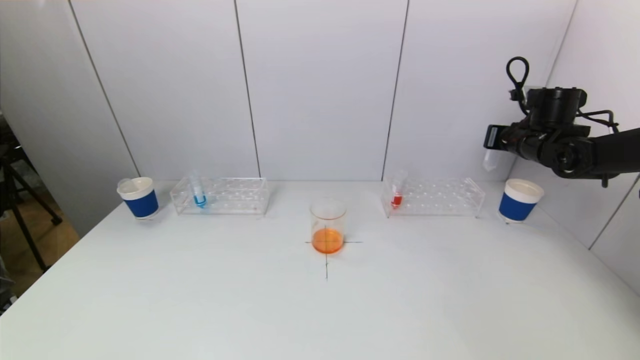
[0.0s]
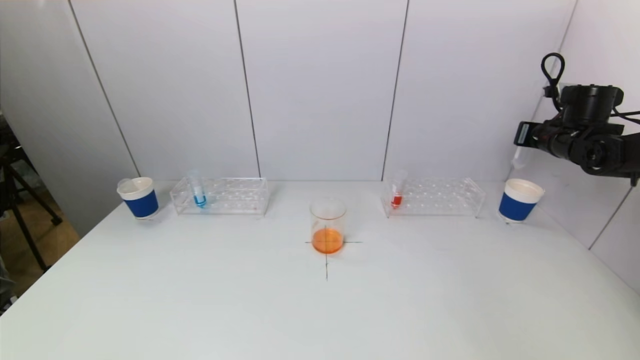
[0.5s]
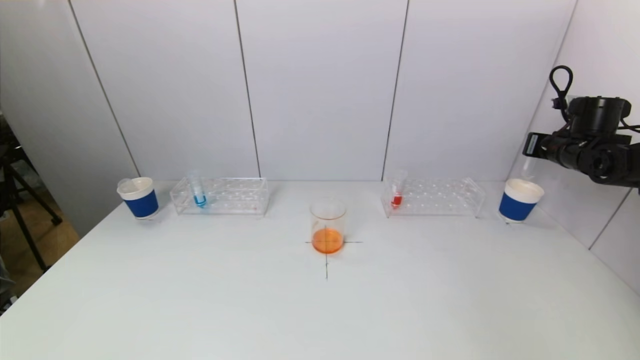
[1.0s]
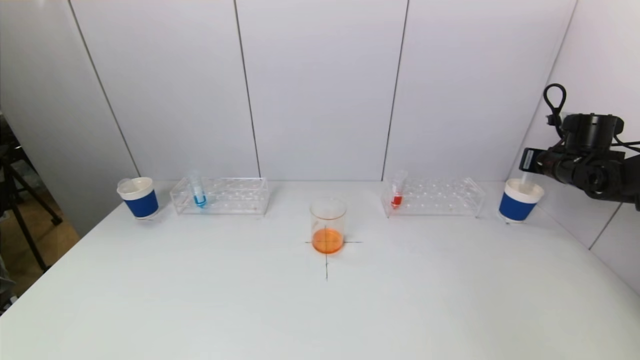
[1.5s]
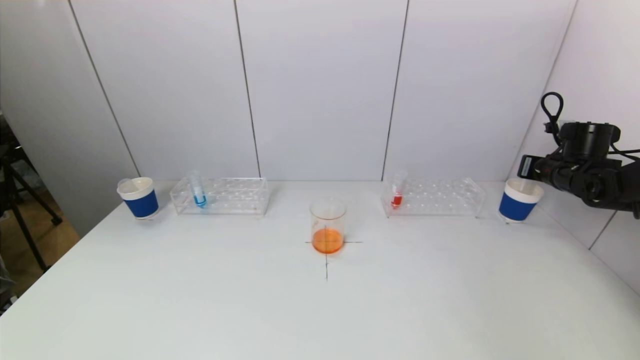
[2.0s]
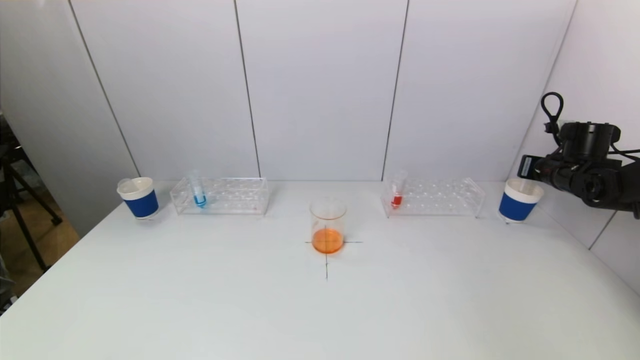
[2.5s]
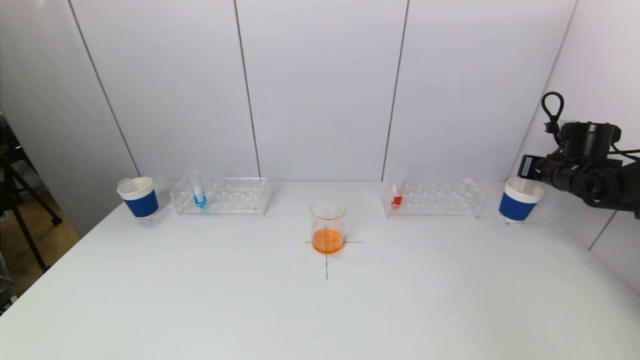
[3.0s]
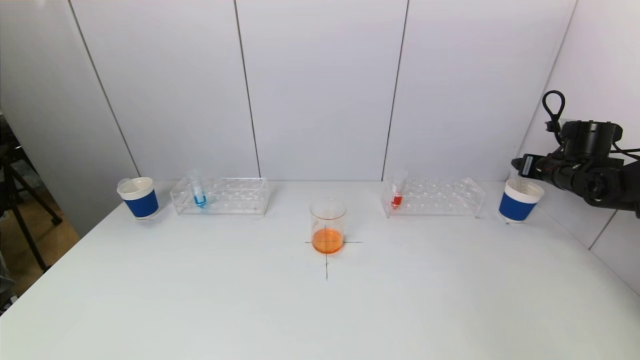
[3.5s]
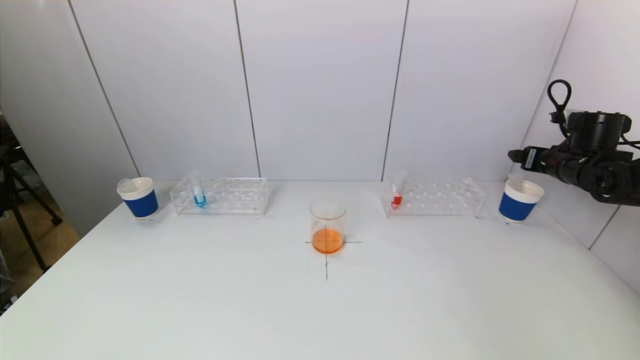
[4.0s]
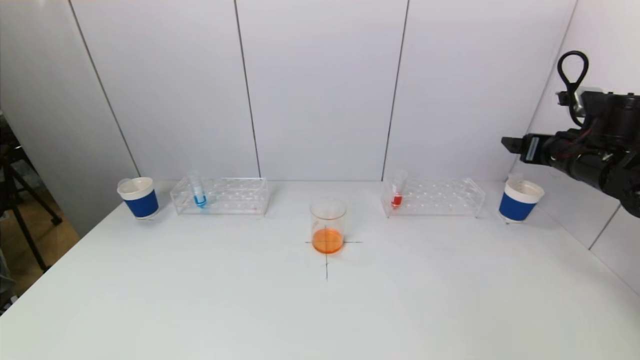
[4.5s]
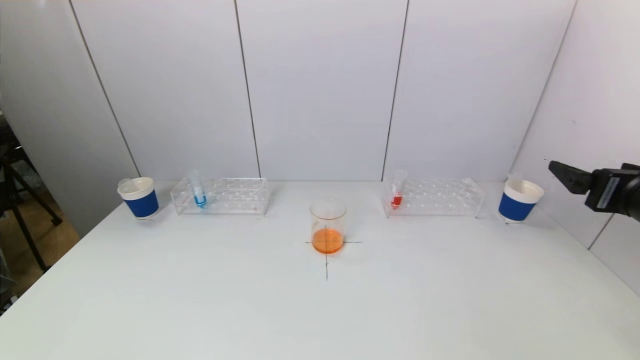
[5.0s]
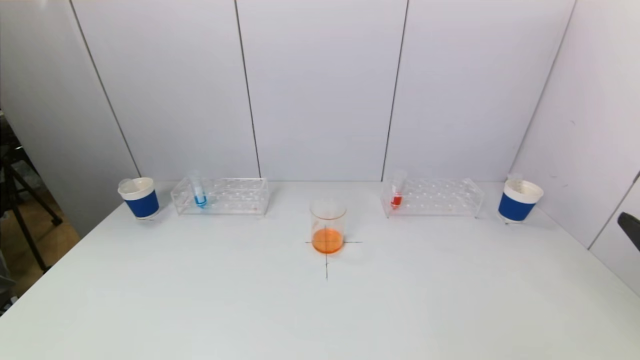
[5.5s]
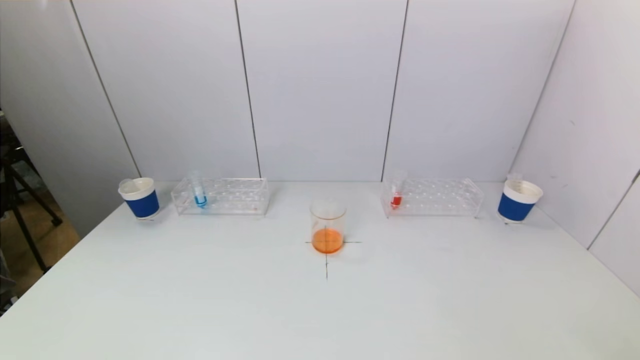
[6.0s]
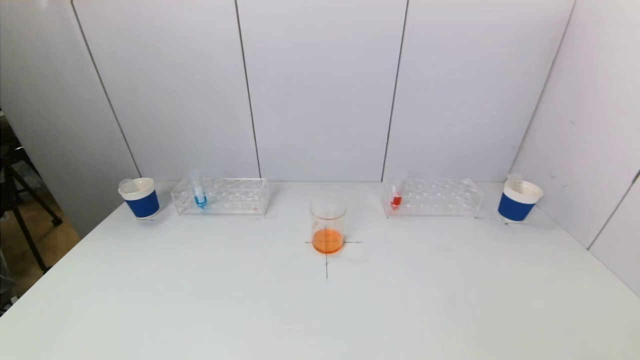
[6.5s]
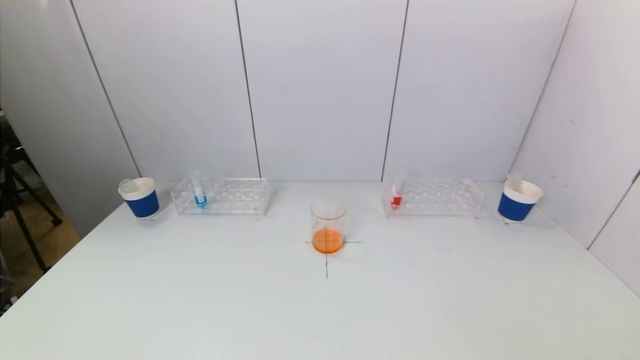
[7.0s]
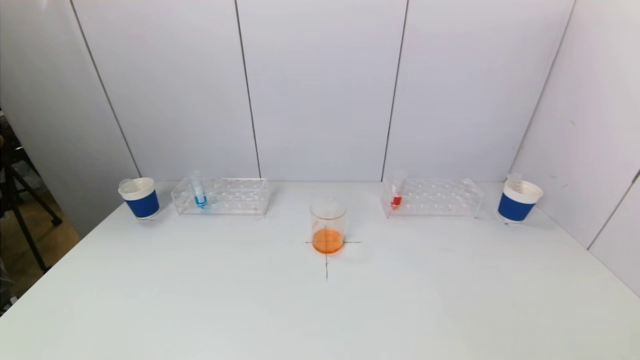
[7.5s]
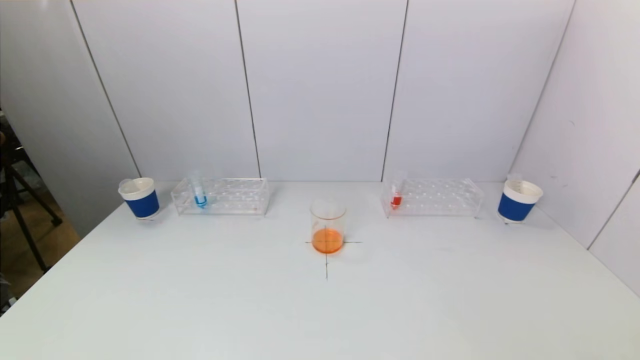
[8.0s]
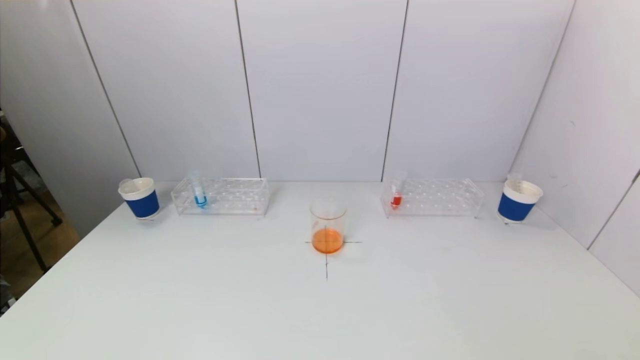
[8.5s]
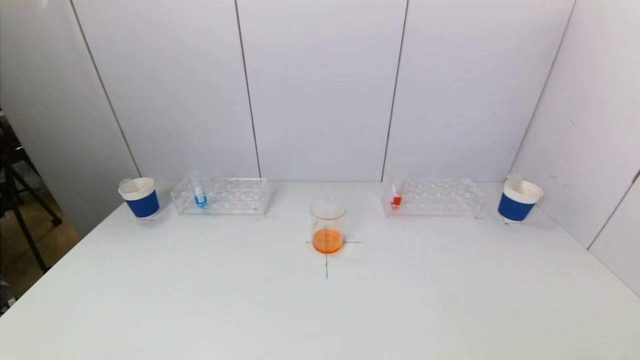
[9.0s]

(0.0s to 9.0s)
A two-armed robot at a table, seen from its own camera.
Task of the whole recording: pick up a test tube with pigment on left test tube rack and a test tube with pigment on right test tube rack by grippers and pour them into the beaker.
Step, 0.0s - 3.5s: Place the test tube into the paper cup with the right gripper.
0.0s - 2.0s: The right gripper moves to the right and downward, roughly 10 cm.
2.0s - 4.5s: The right gripper shifts about 15 cm backward, to the left and upward, and opens.
4.5s - 7.0s: The right gripper goes roughly 35 cm backward.

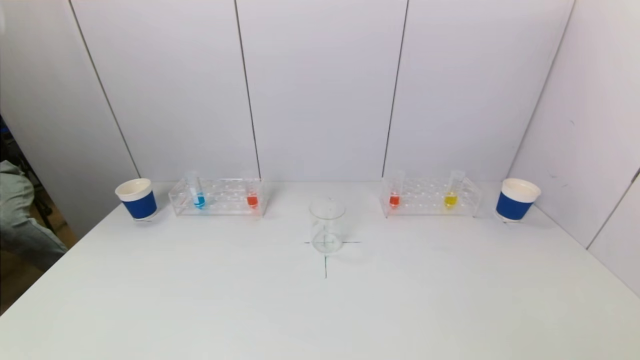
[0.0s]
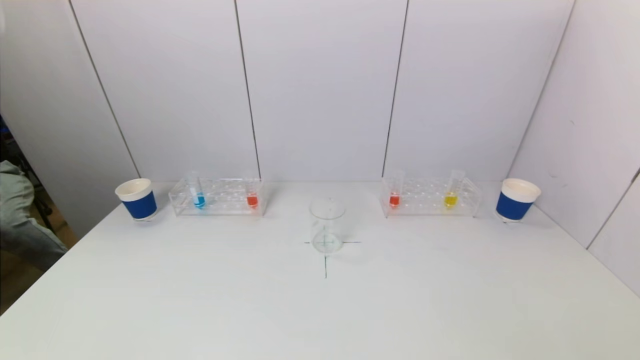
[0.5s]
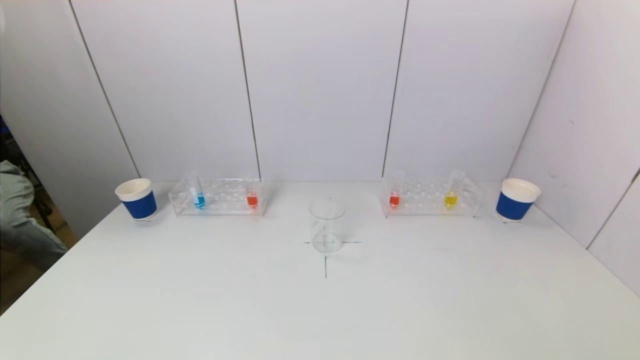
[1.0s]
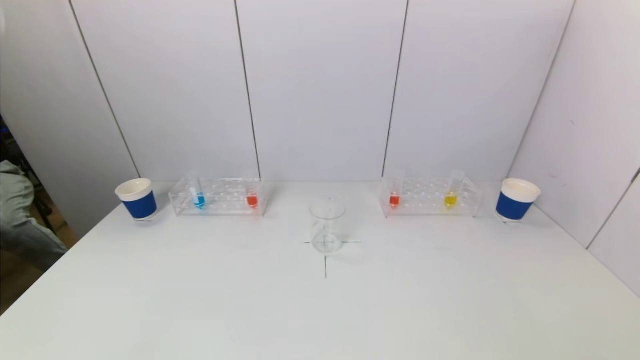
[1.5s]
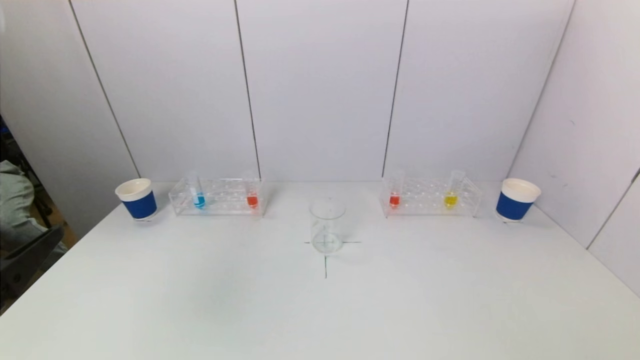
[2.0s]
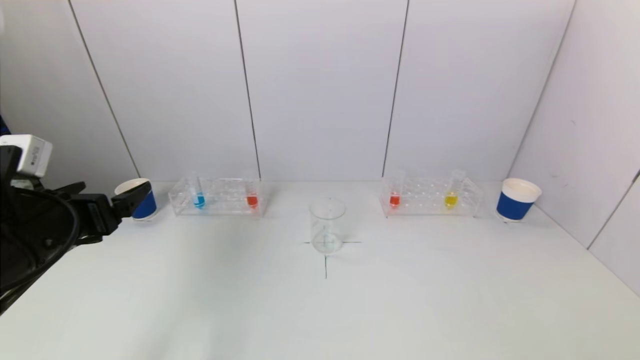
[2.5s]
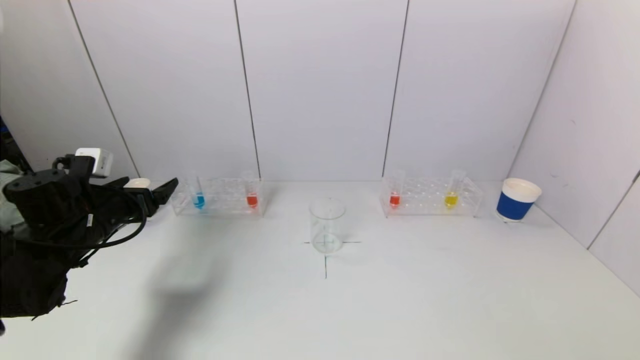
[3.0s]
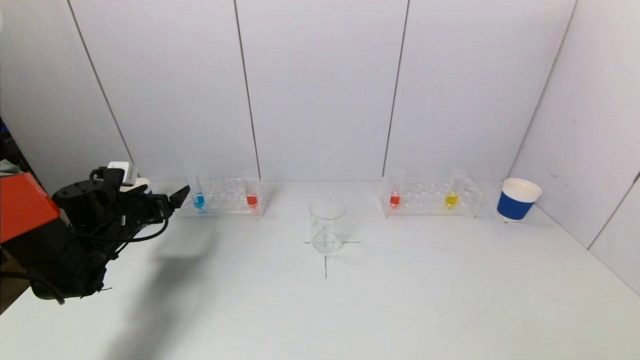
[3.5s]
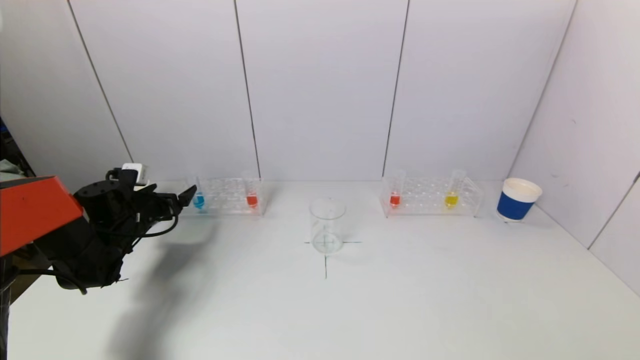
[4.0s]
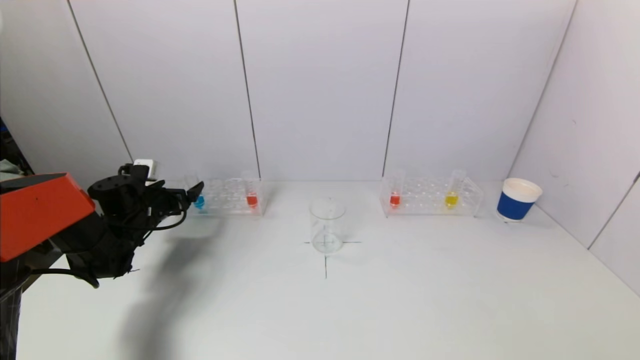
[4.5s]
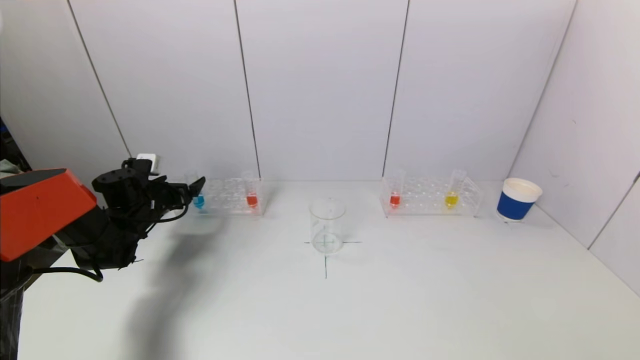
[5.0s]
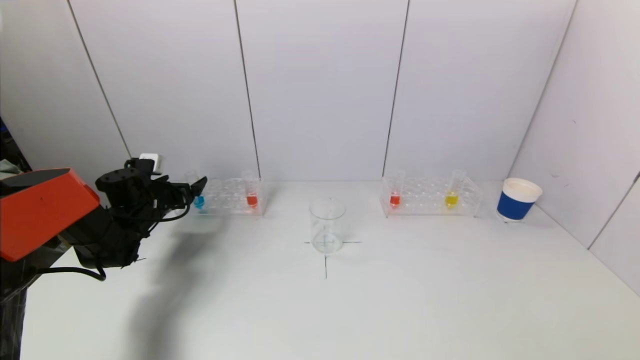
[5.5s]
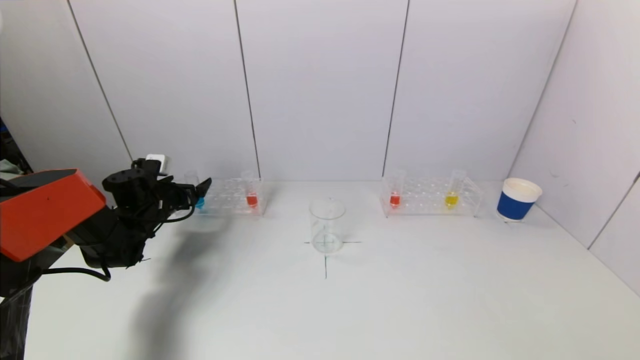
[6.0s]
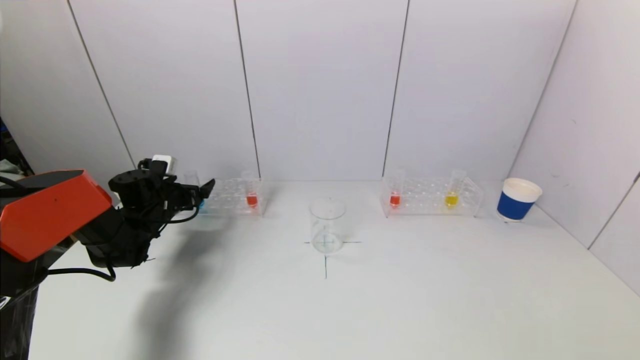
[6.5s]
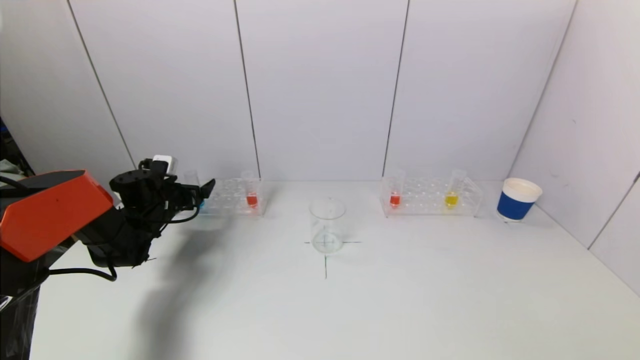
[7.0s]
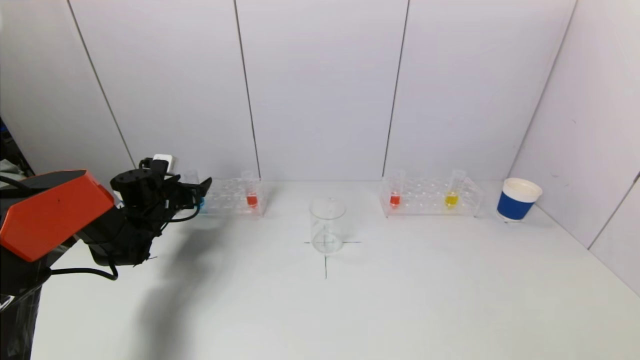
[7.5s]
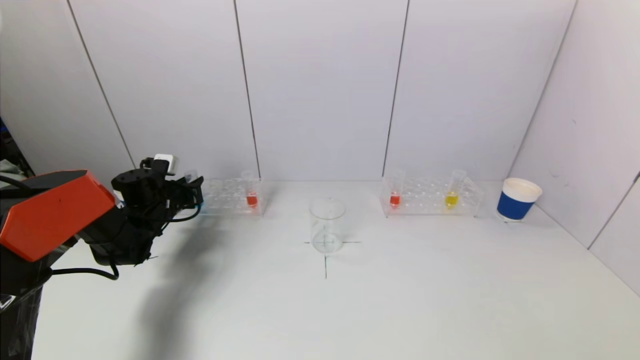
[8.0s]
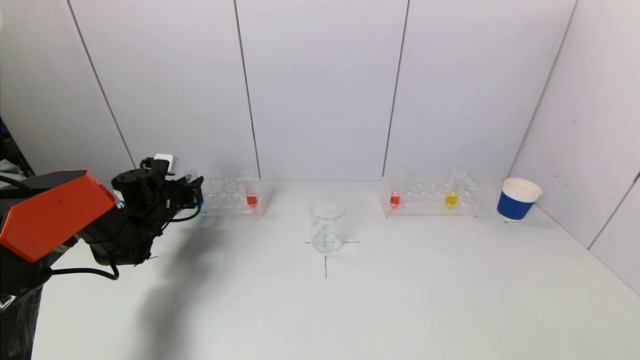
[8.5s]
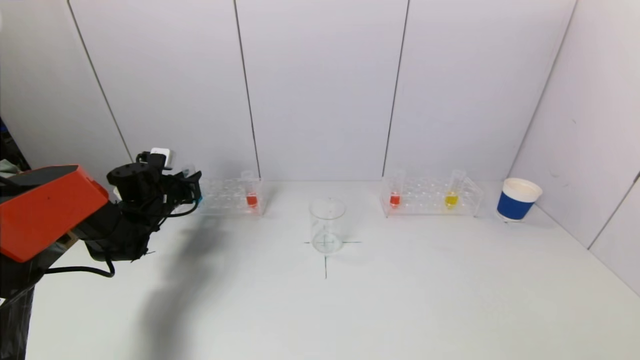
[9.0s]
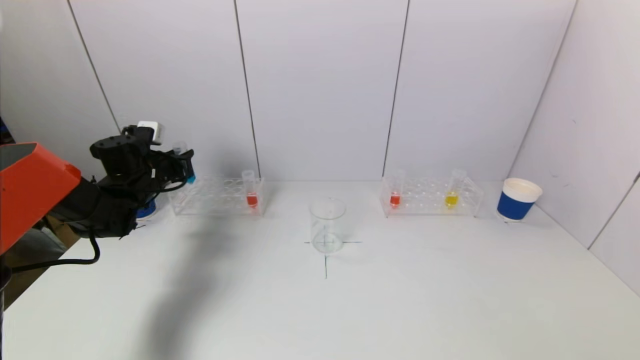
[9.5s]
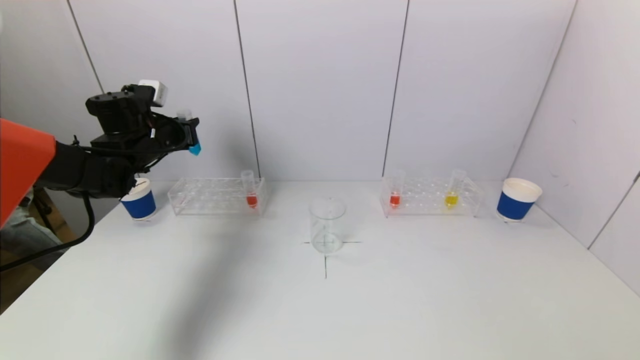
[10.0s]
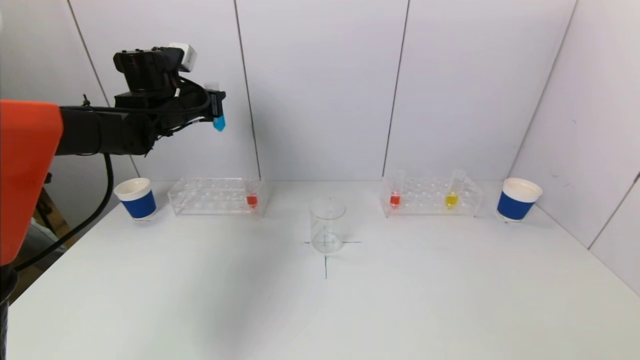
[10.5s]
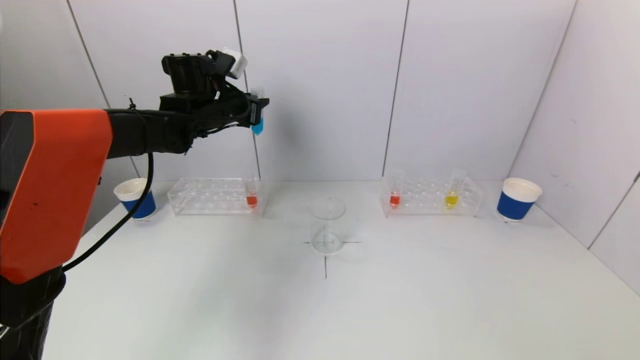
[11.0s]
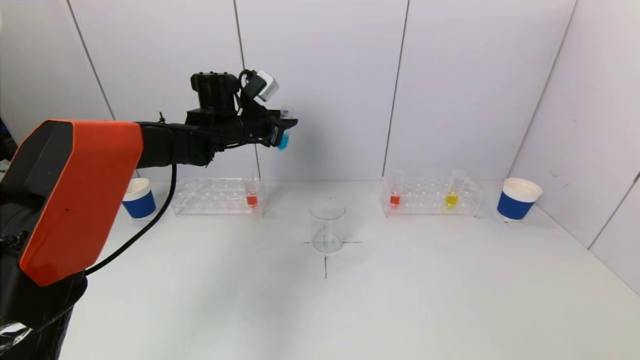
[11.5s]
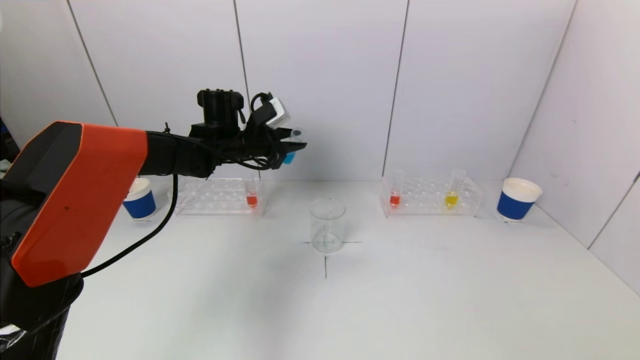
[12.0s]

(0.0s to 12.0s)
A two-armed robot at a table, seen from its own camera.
Task of the whole recording: pick up a test tube with pigment on left test tube rack and a test tube with pigment on right test tube rack by grippers and pour them into the beaker.
Step, 0.0s - 8.0s: Grasp the blue reagent with the left gripper.
2.0s - 4.0s: The left gripper travels forward and downward by about 35 cm.
4.0s - 6.0s: The grippers stay close to where they were, moving slightly.
6.0s - 8.0s: The left gripper closes its fingers.
8.0s - 10.0s: The left gripper shifts some 15 cm upward.
10.0s - 12.0s: The left gripper heads to the right, covering some 15 cm.
